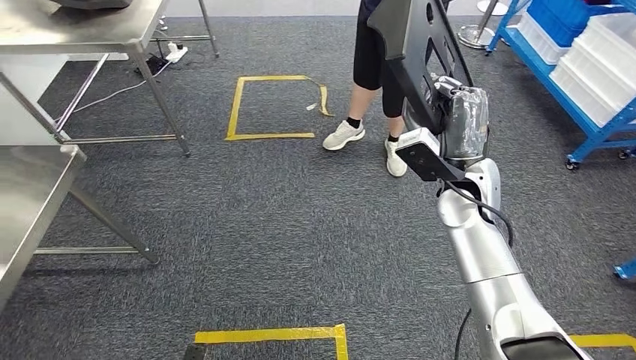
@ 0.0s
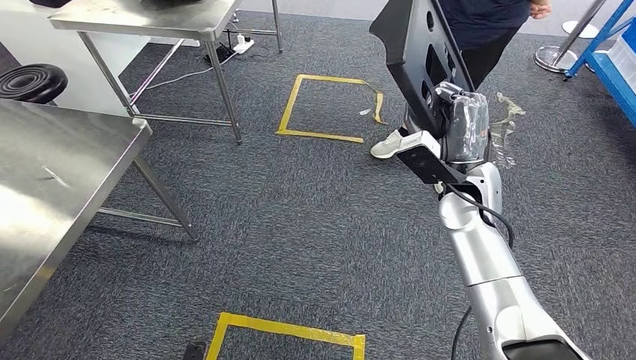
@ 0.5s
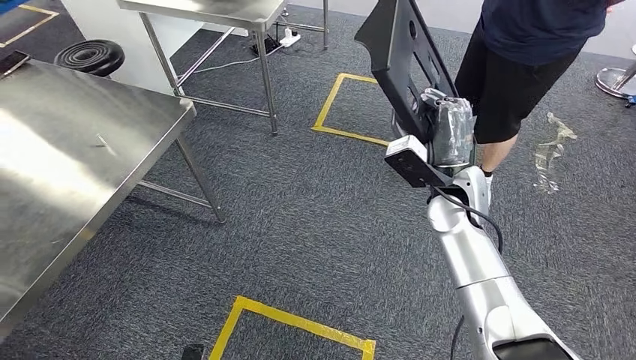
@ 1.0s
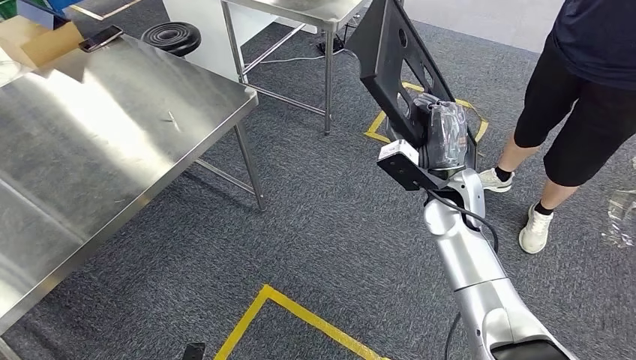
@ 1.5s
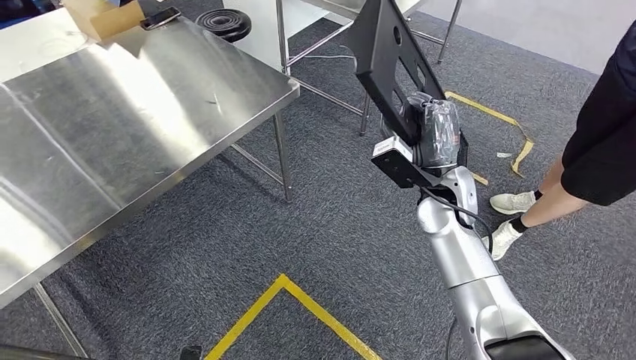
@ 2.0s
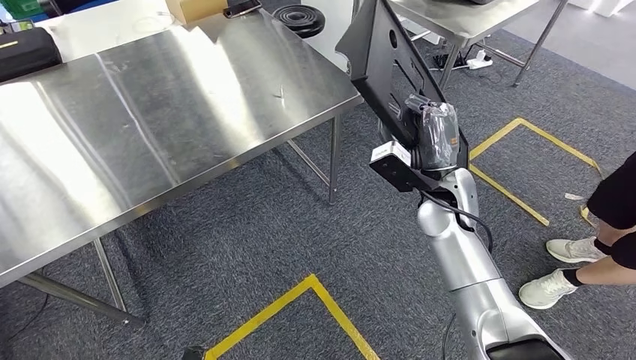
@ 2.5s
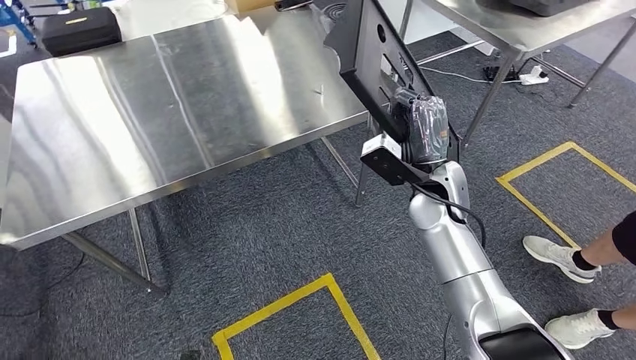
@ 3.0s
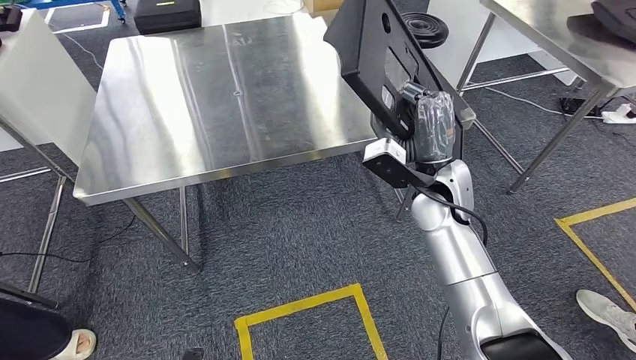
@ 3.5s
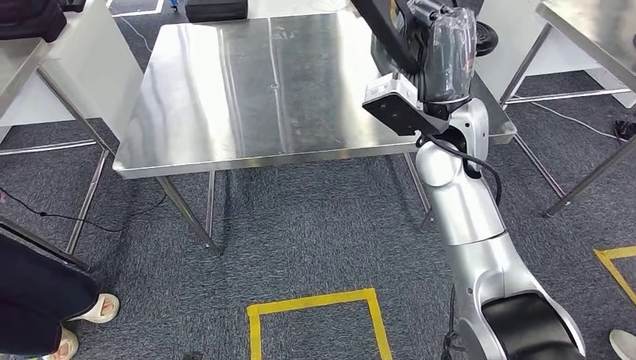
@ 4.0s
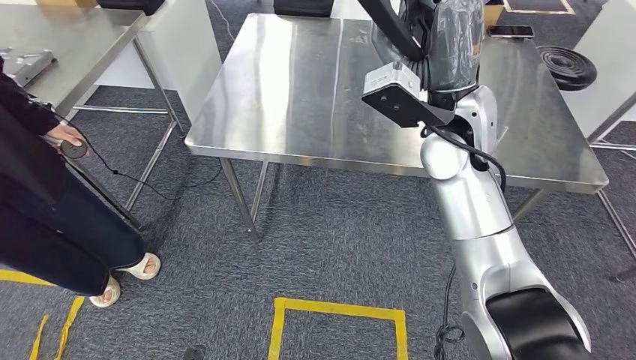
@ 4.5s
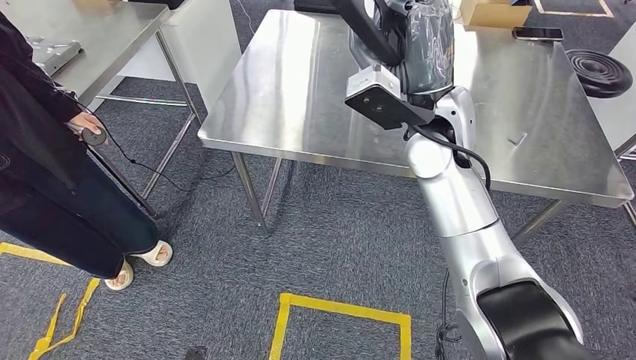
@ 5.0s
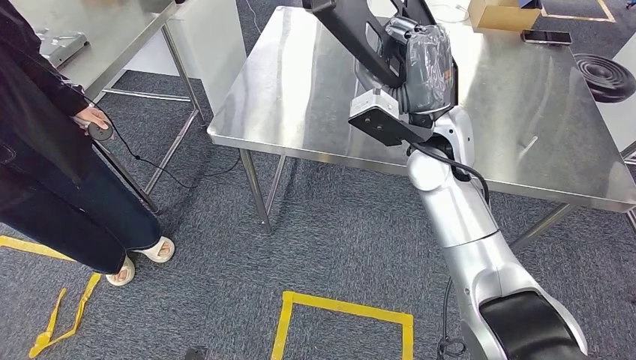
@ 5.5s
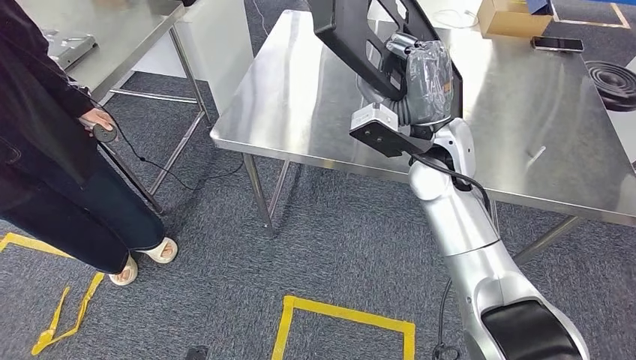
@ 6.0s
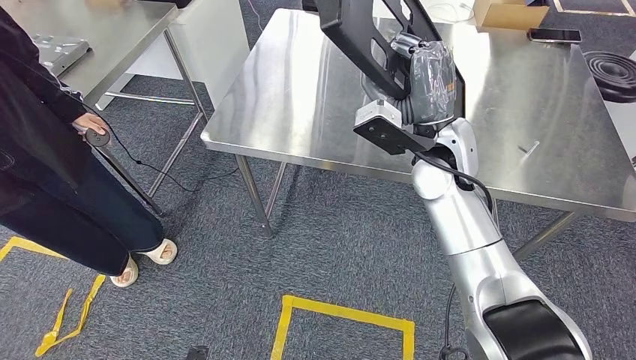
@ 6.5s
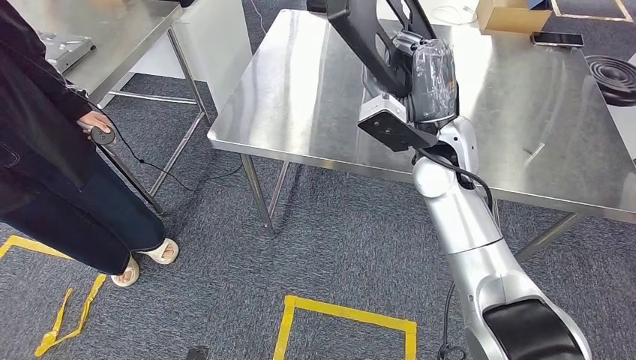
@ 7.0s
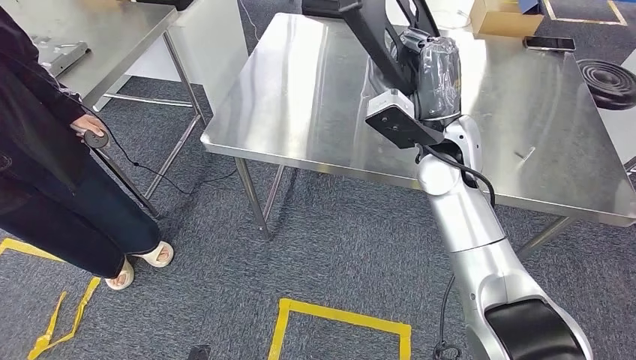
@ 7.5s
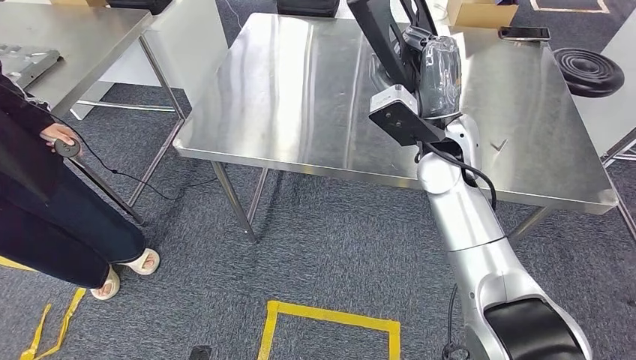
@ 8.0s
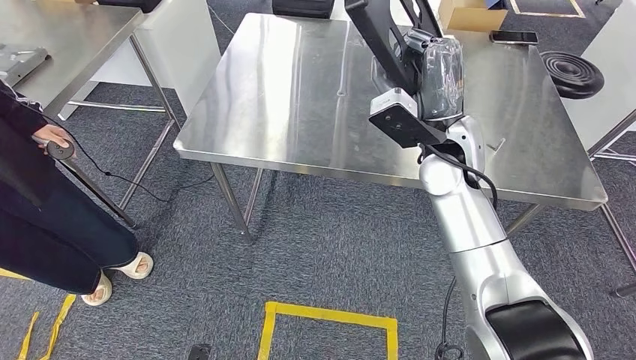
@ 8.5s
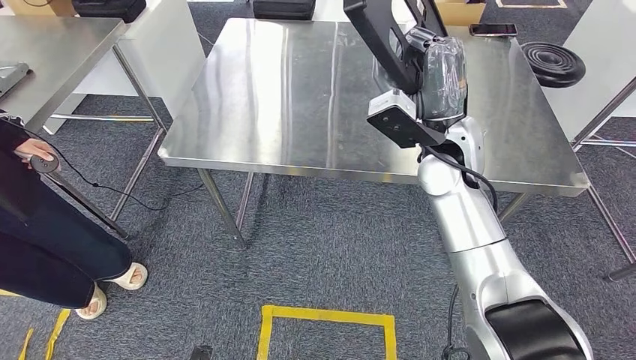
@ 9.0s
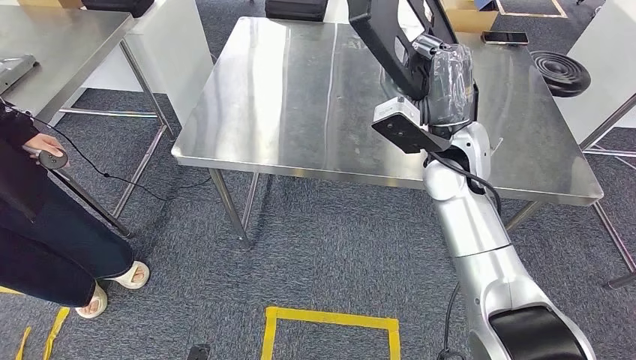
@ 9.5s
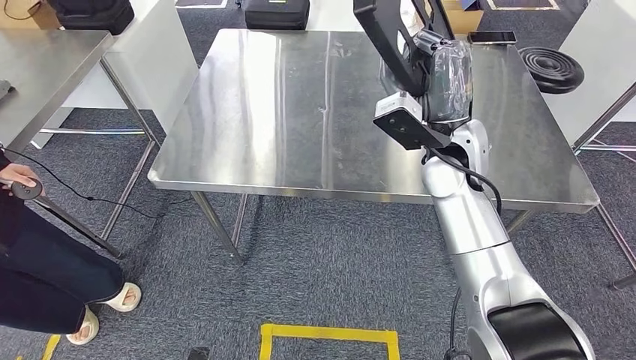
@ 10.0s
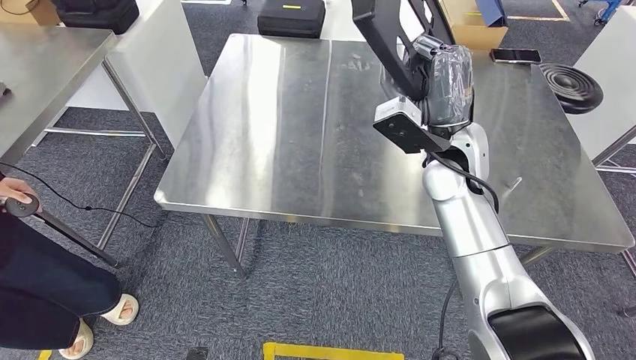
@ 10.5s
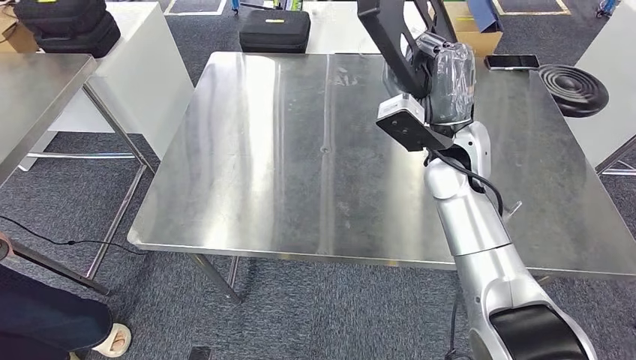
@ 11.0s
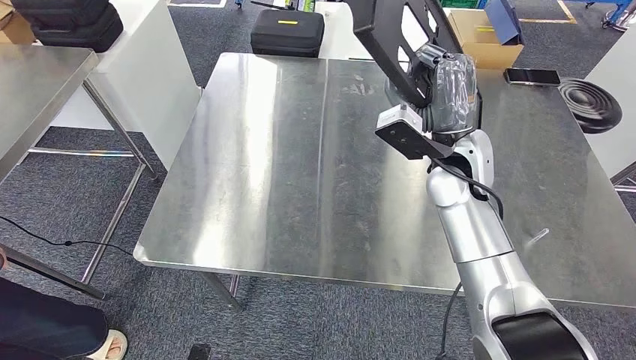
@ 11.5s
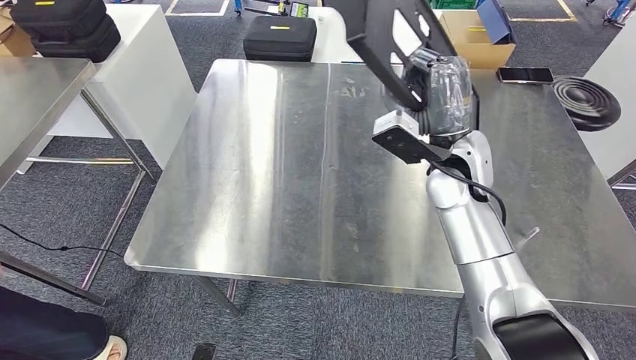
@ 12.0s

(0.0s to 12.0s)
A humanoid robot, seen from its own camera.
Step, 0.0s - 5.5s: Move the large material to the front of the workbench.

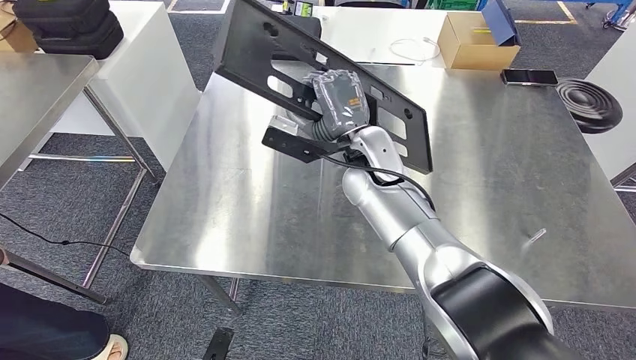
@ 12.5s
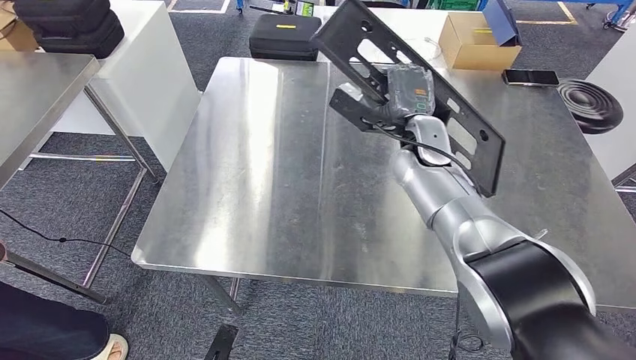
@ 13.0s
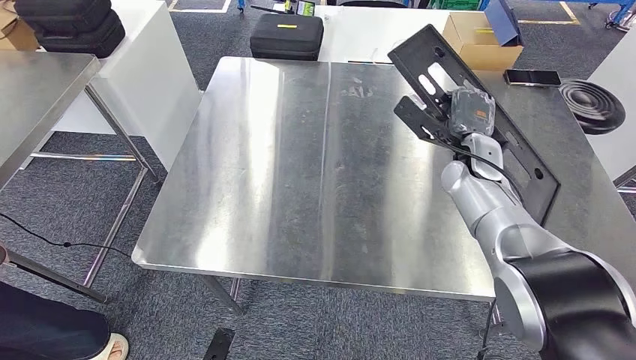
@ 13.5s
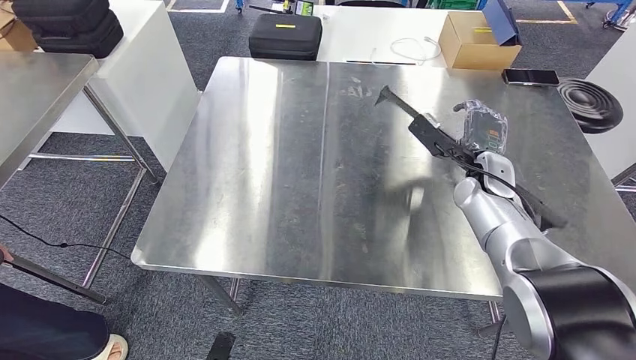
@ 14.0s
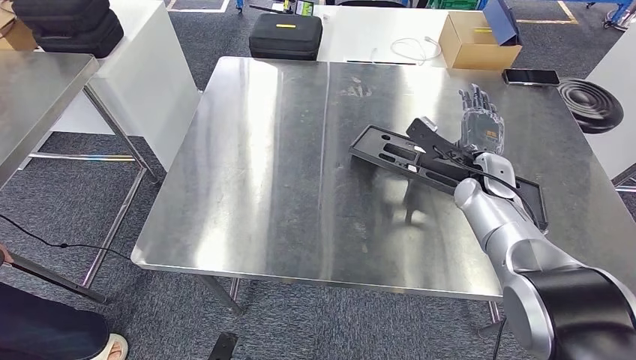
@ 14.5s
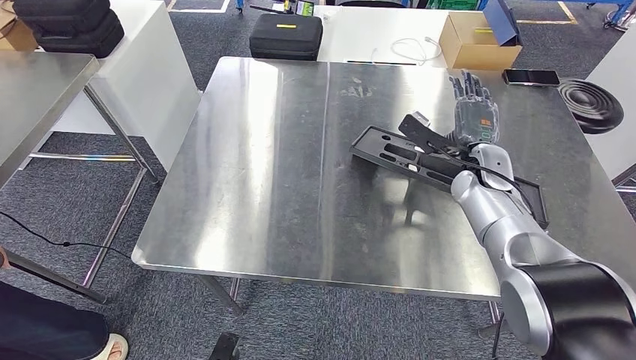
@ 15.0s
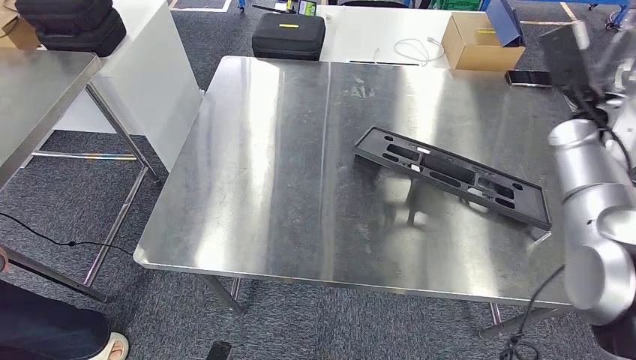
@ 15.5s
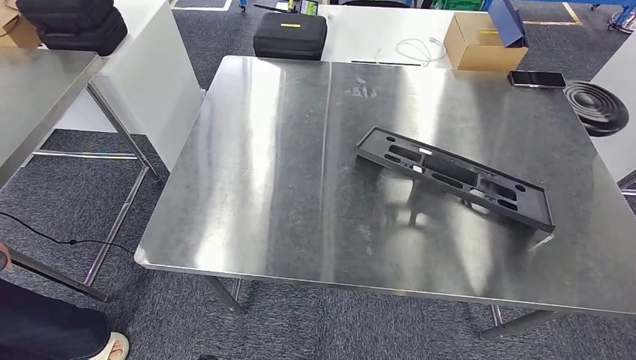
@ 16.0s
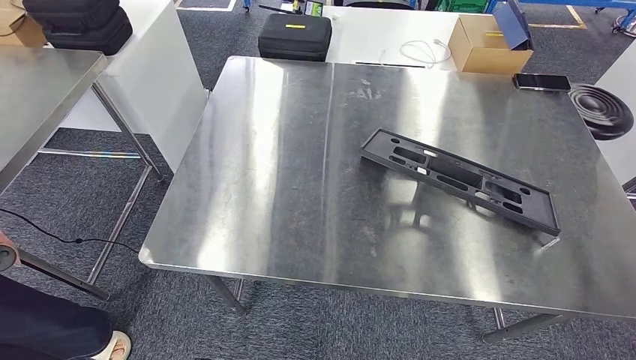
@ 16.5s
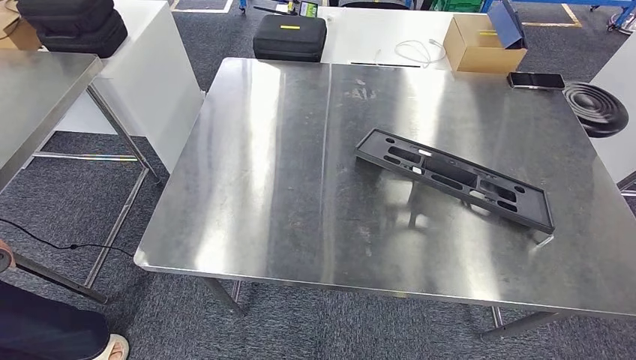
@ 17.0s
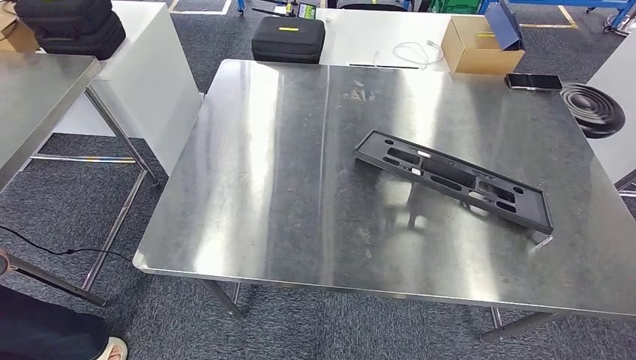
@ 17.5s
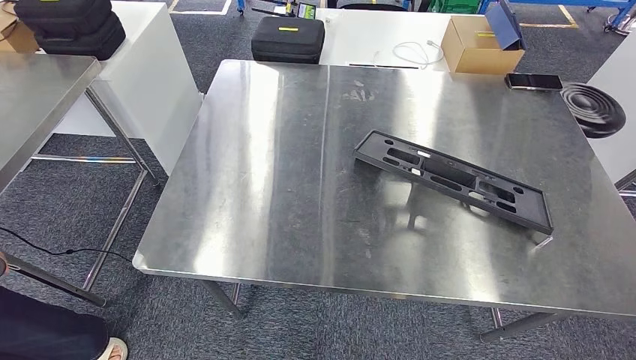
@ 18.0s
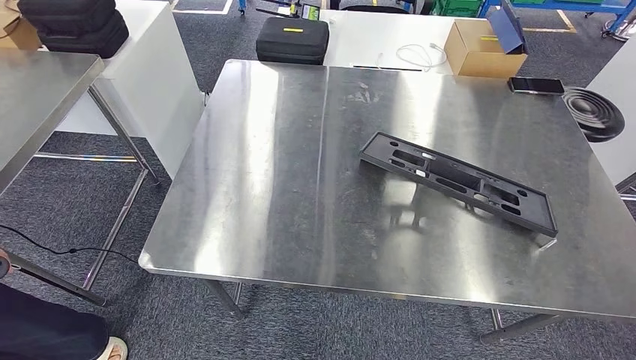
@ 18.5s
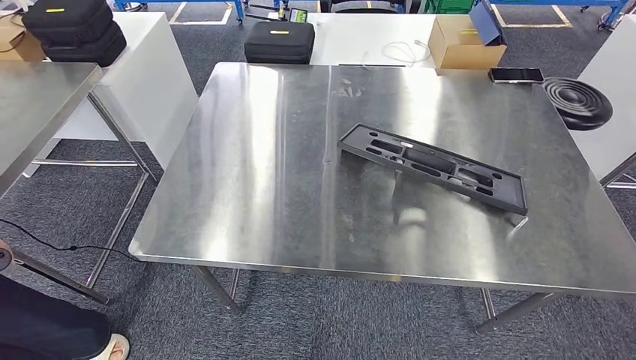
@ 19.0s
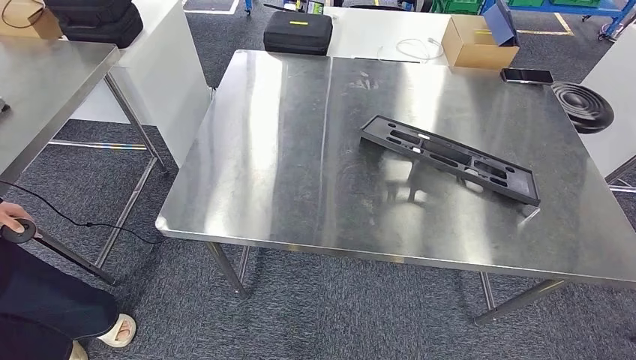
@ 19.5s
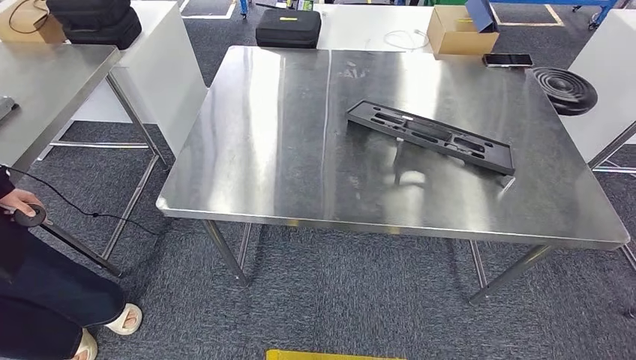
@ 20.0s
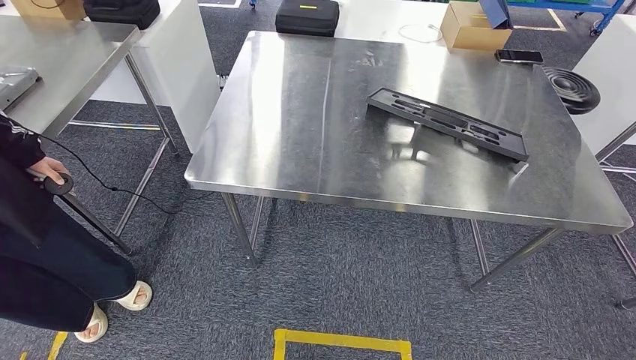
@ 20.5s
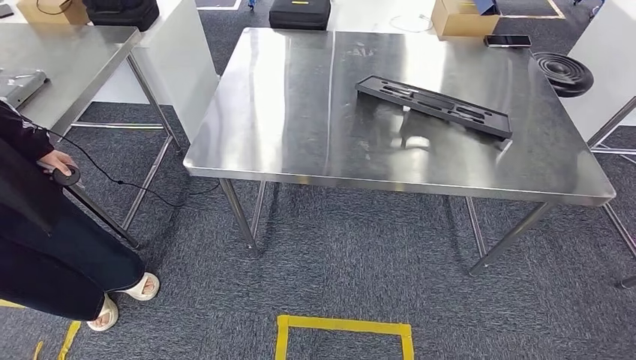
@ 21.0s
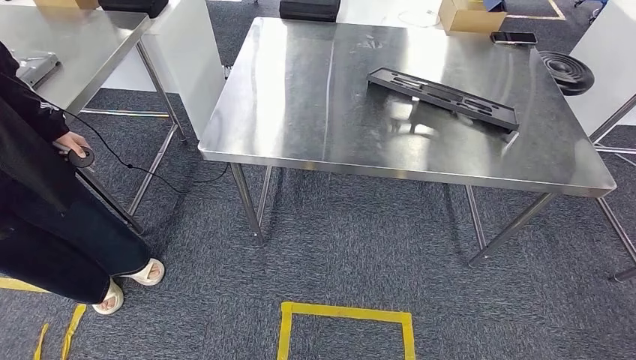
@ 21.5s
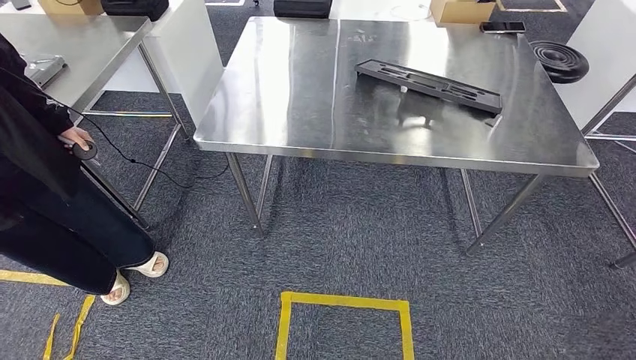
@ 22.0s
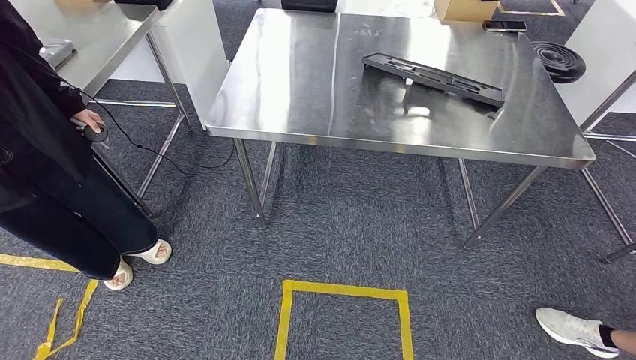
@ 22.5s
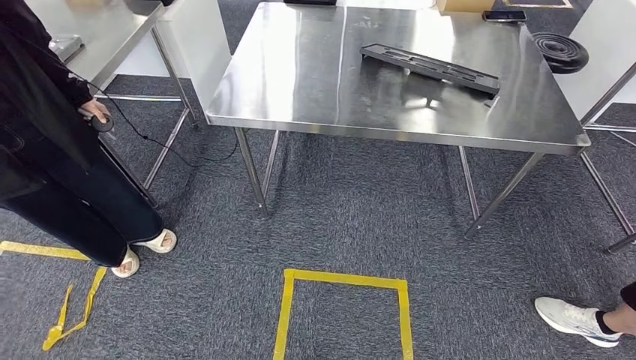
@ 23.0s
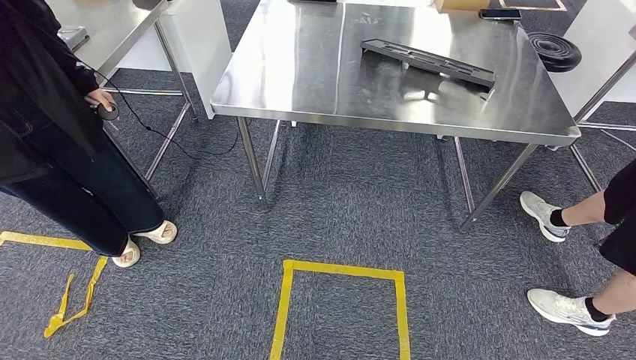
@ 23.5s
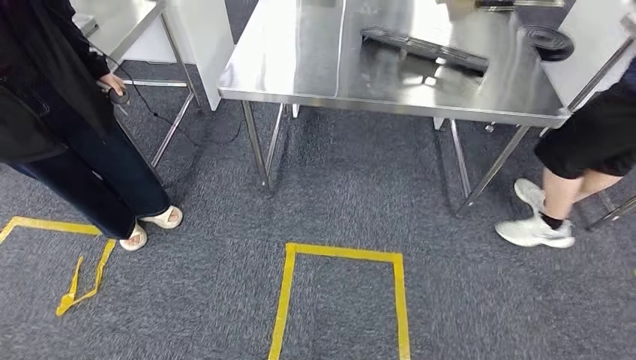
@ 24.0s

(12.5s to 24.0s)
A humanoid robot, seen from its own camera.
Step, 12.5s - 20.5s: Insert the large material into the corresponding hole on the workbench.
16.5s - 18.5s: The right hand heads to the left and downward, covering about 50 cm.
